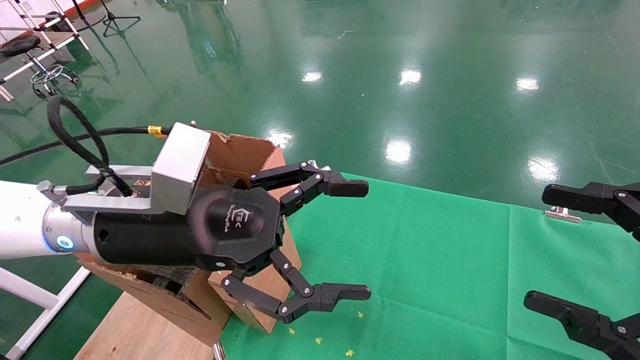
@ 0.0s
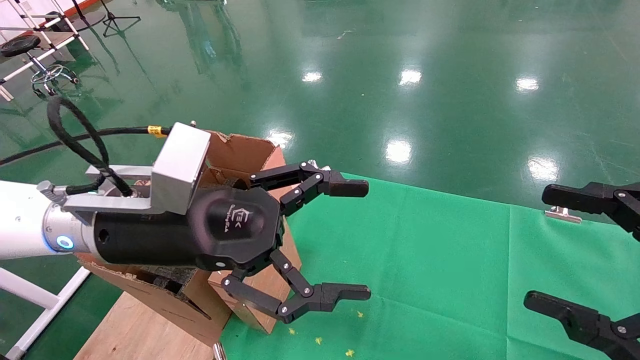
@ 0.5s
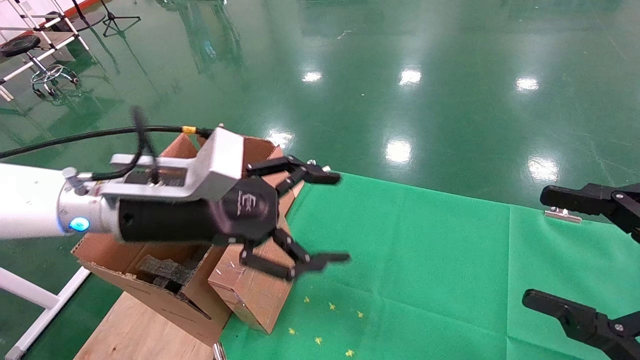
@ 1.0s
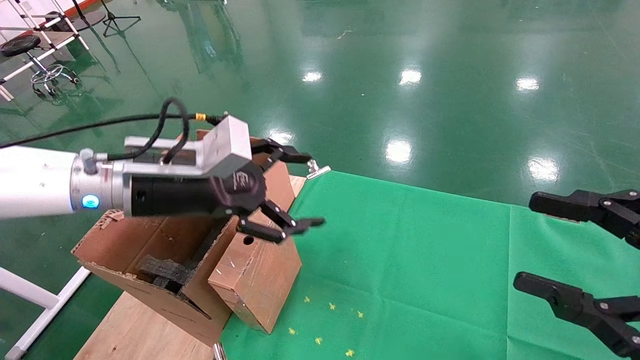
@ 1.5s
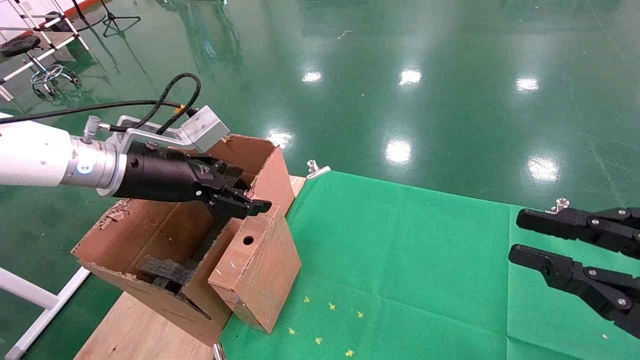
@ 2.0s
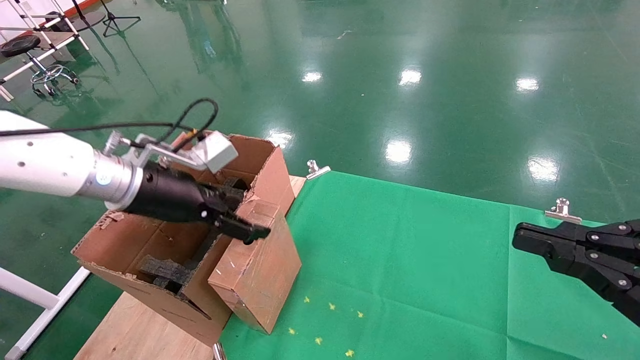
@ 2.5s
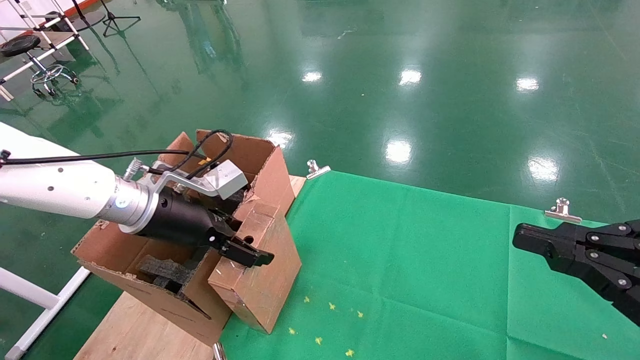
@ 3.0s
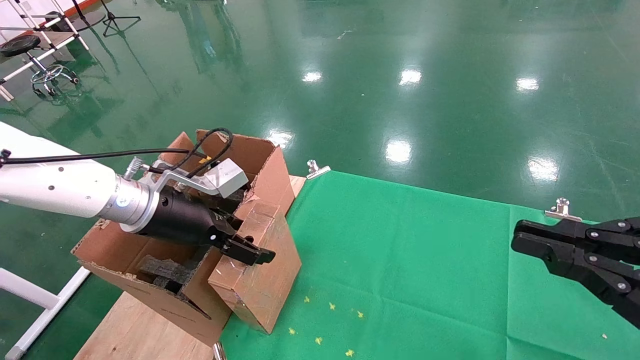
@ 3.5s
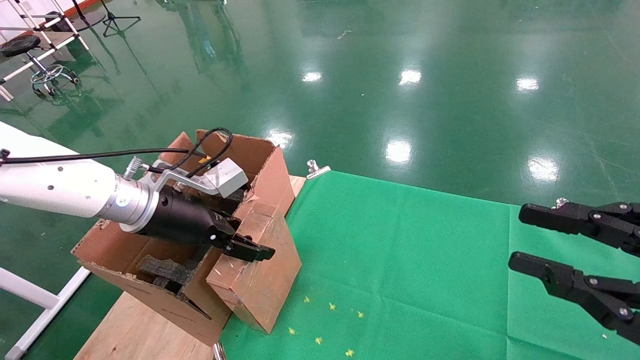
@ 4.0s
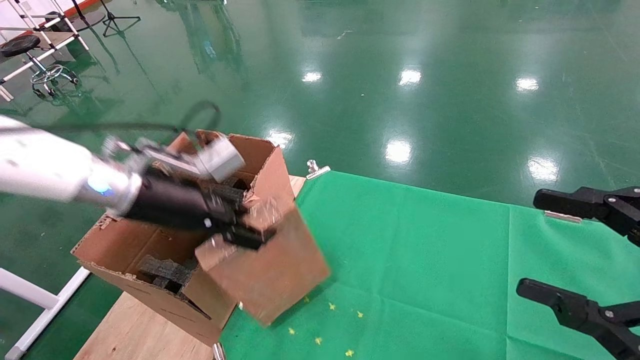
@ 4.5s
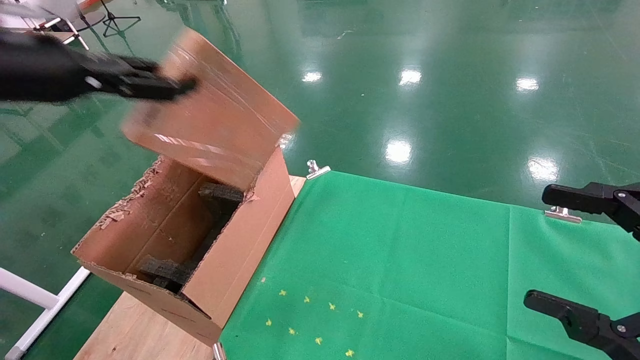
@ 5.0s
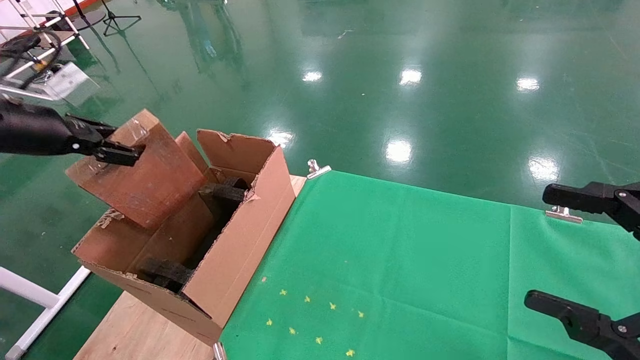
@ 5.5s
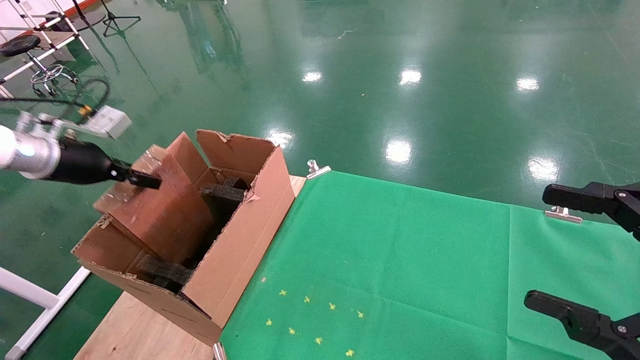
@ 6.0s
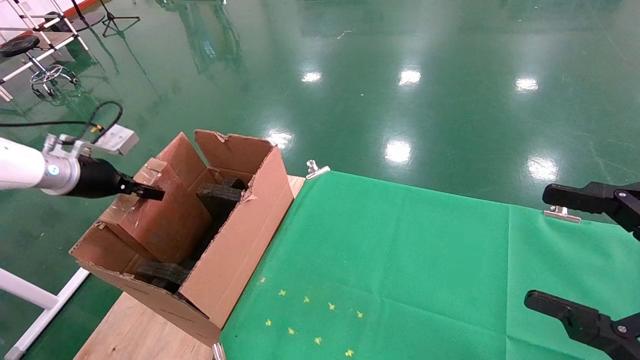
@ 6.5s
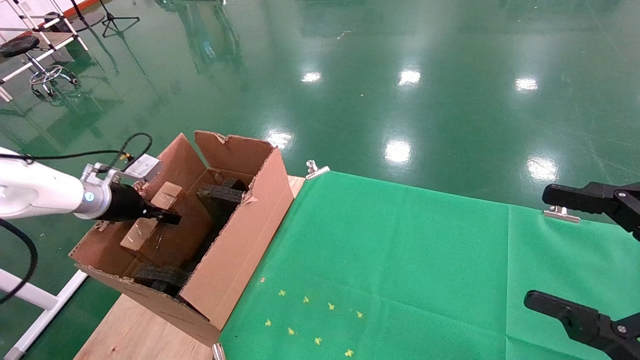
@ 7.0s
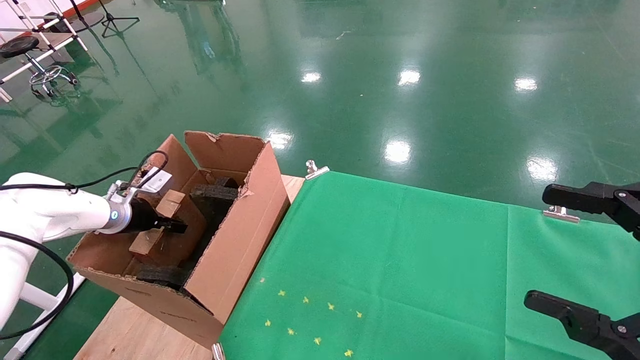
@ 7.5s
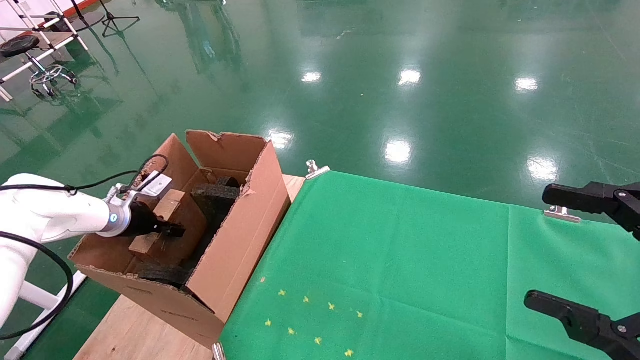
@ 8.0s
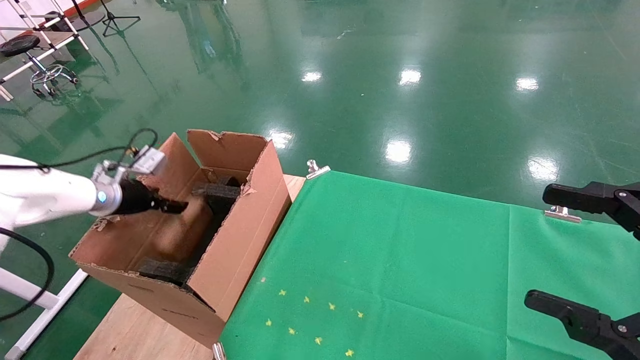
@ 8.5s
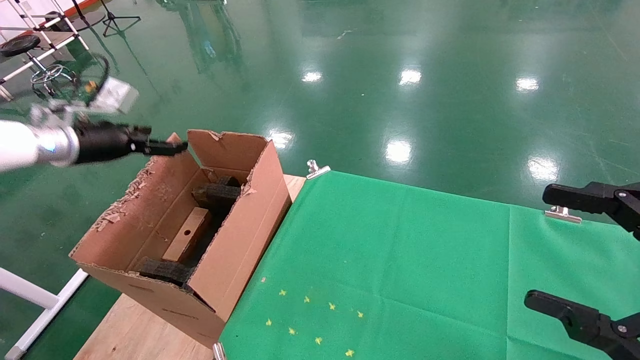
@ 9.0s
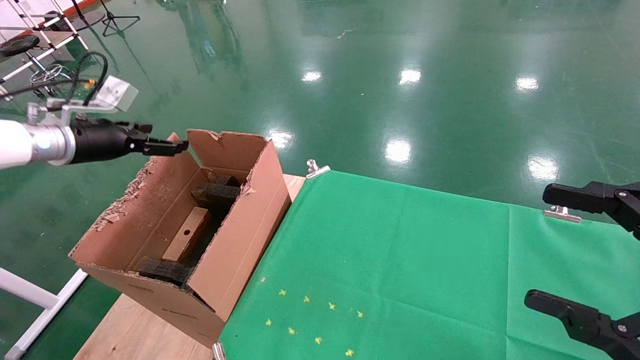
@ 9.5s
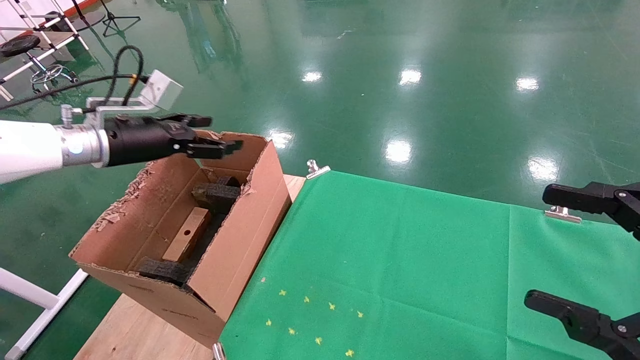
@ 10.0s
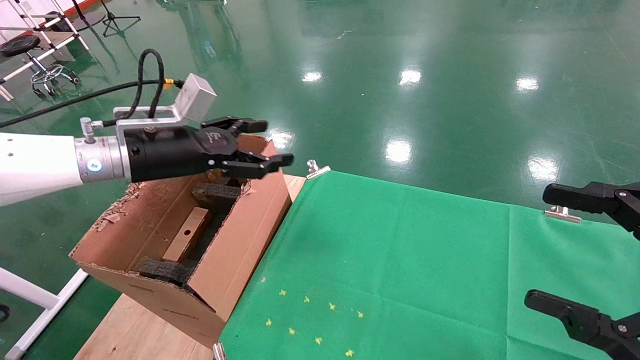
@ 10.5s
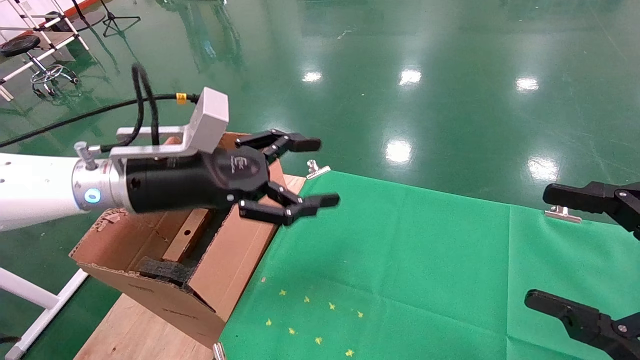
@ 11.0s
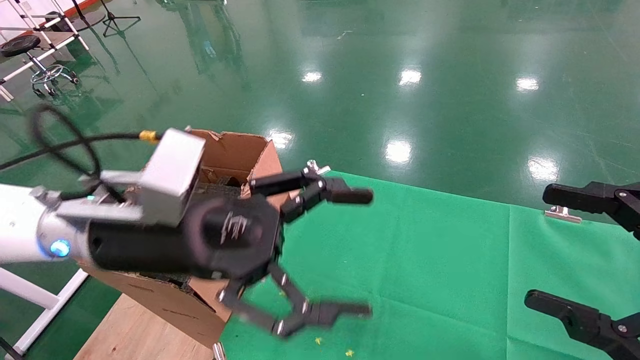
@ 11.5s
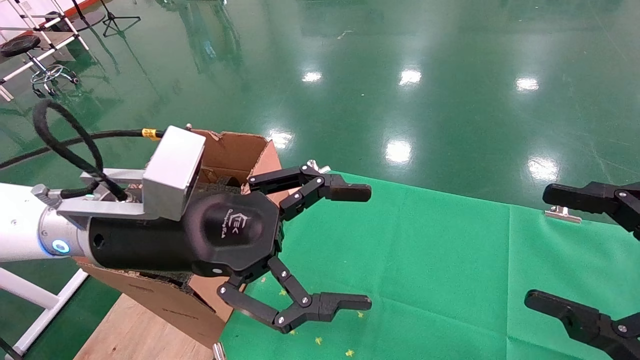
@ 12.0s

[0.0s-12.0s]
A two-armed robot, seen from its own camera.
Task of the whole recording: using a robotic arm to pick up a cardboard box and palace it the carton.
Step, 1.5s to 4.0s: Pick up the mouse and the power cord paper box.
Step, 4.5s to 8.5s: Place the mouse and the power cord paper box into the container.
0.0s to 2.0s: The left gripper travels to the left and forward by roughly 10 cm. The right gripper closes its fingers.
2.0s to 4.0s: The left gripper shifts approximately 5 cm downward.
4.0s to 6.0s: The right gripper opens up. The left gripper shifts roughly 20 cm to the left, and closes.
6.0s to 8.0s: The left gripper shifts approximately 15 cm downward and forward.
8.0s to 10.0s: The left gripper moves upward and to the right, roughly 20 cm, and opens up.
10.0s to 12.0s: The left gripper shifts some 25 cm to the right and backward.

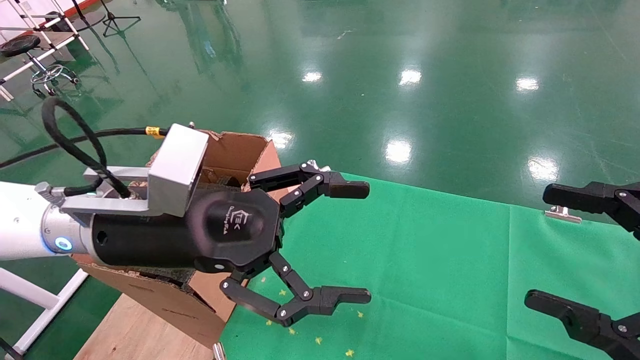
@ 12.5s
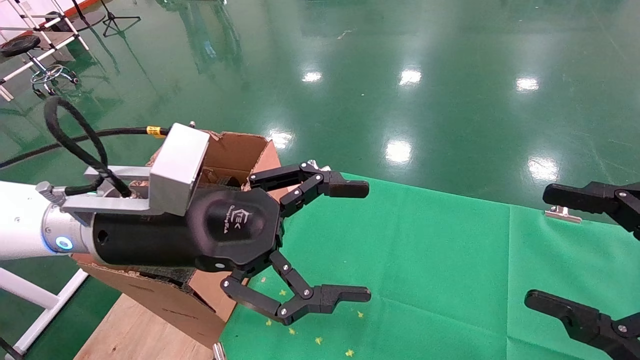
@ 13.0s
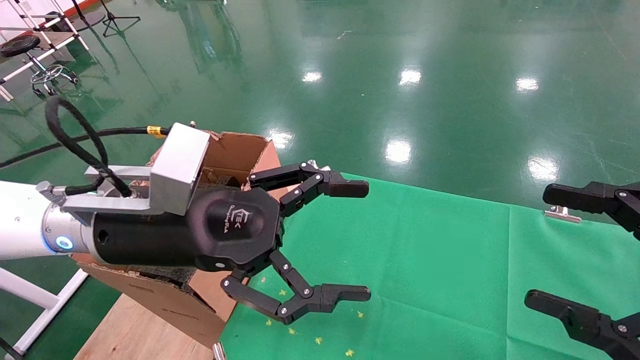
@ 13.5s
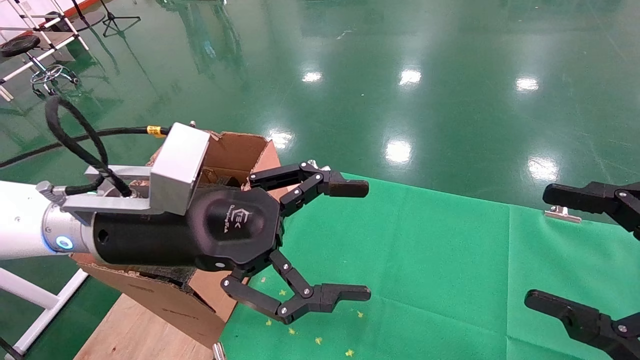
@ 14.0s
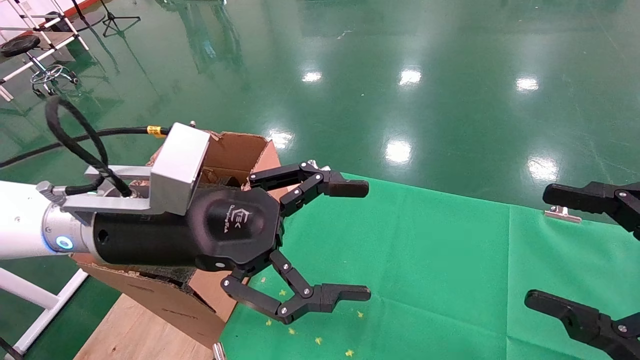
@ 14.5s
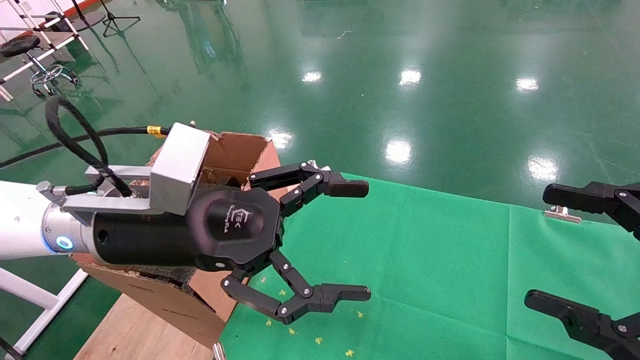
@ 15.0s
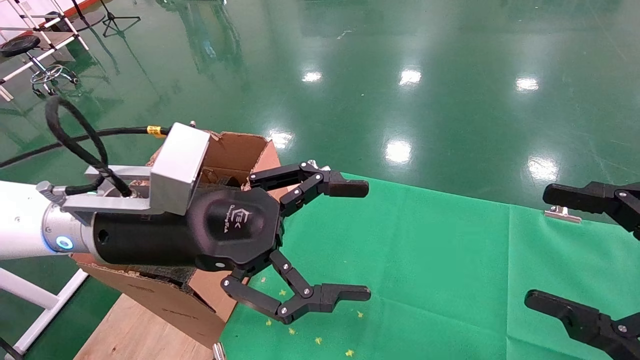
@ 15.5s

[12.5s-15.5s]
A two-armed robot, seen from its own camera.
Task of the whole recording: using a robotic arm to pick up a cardboard box and palace it the carton.
12.5s to 15.5s: The two grippers keep their place.
